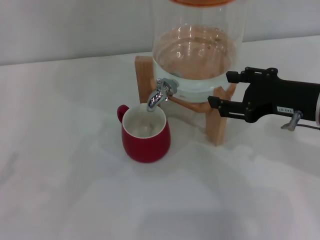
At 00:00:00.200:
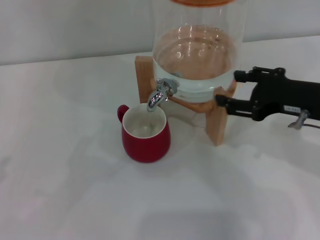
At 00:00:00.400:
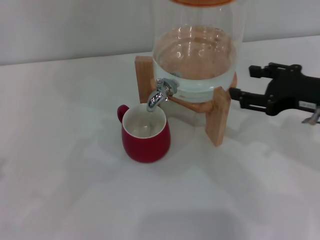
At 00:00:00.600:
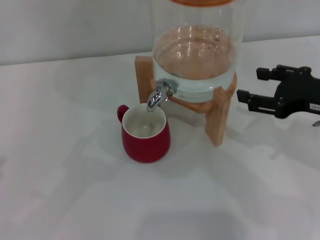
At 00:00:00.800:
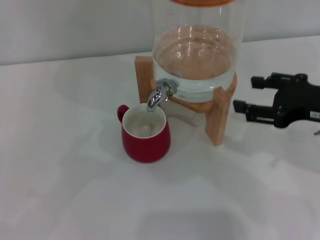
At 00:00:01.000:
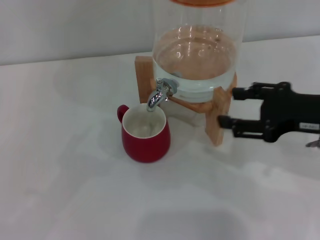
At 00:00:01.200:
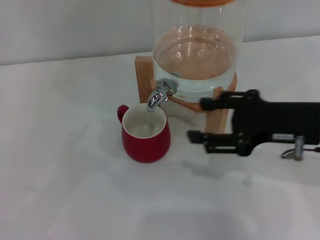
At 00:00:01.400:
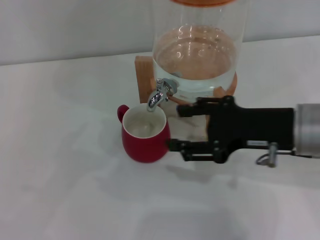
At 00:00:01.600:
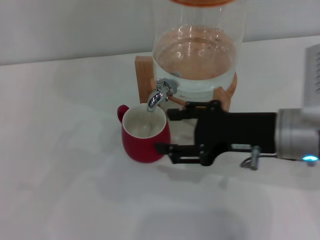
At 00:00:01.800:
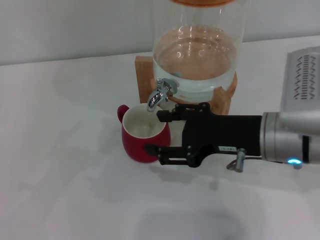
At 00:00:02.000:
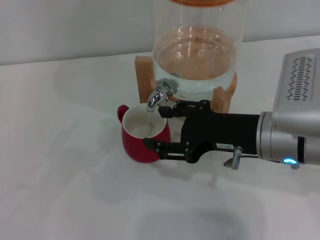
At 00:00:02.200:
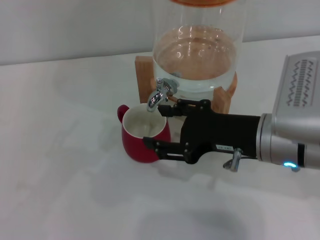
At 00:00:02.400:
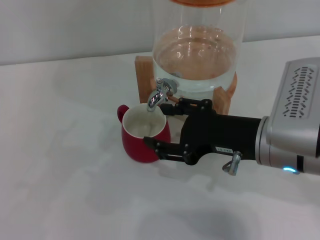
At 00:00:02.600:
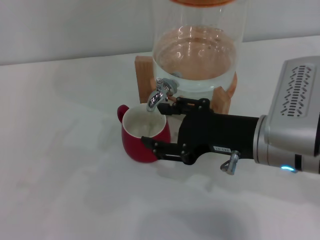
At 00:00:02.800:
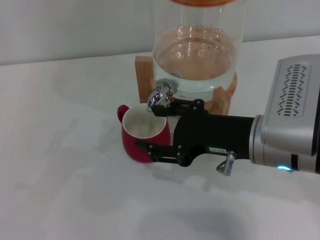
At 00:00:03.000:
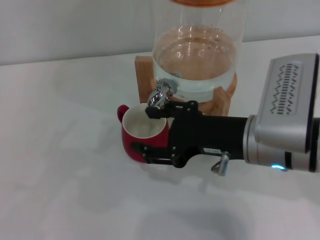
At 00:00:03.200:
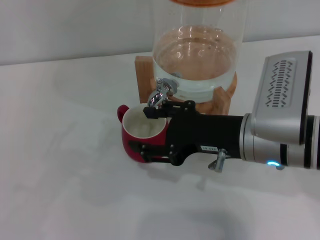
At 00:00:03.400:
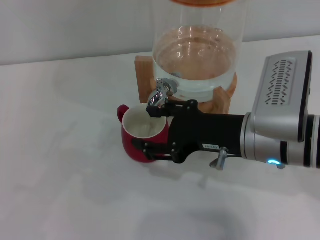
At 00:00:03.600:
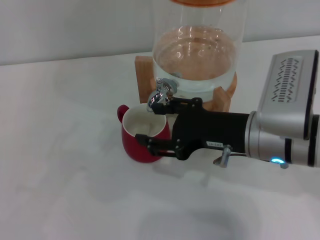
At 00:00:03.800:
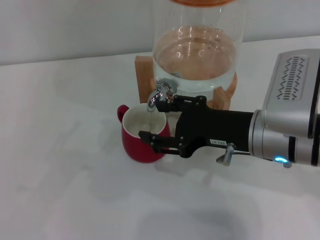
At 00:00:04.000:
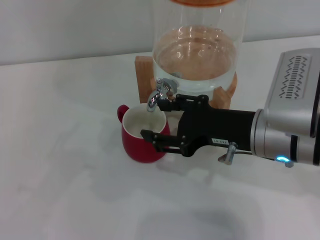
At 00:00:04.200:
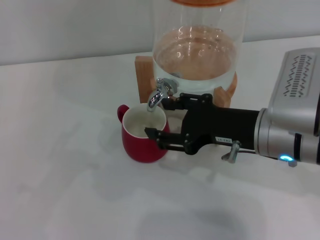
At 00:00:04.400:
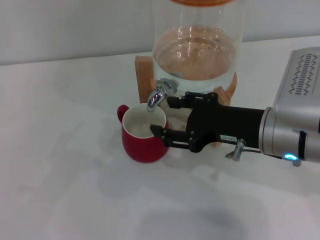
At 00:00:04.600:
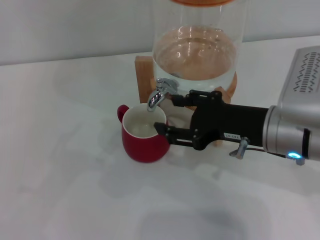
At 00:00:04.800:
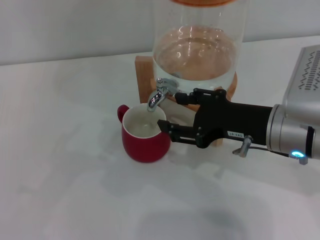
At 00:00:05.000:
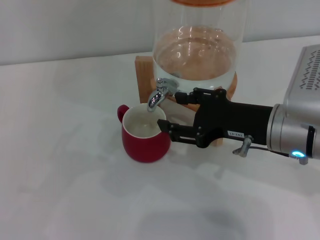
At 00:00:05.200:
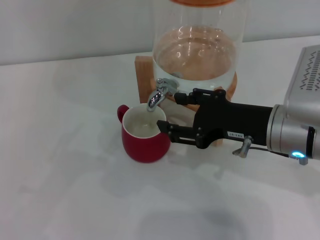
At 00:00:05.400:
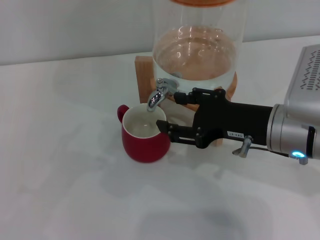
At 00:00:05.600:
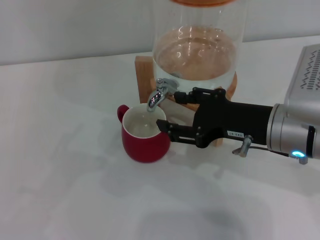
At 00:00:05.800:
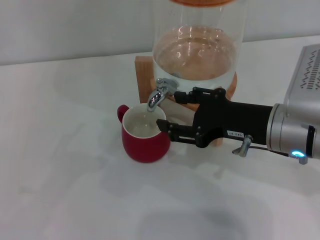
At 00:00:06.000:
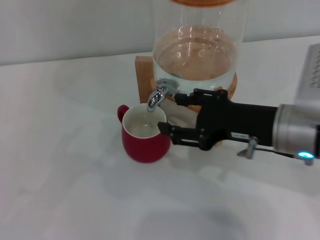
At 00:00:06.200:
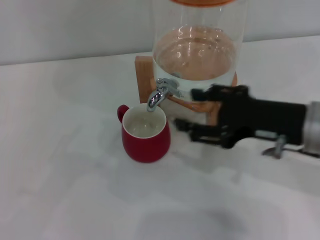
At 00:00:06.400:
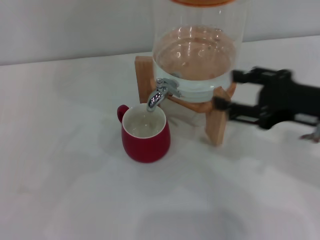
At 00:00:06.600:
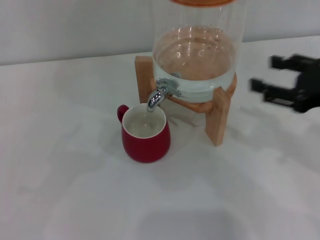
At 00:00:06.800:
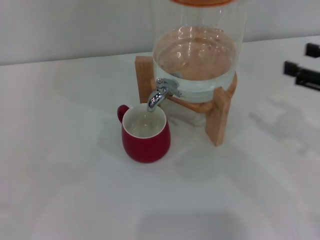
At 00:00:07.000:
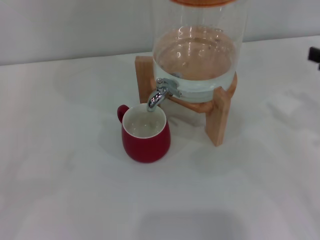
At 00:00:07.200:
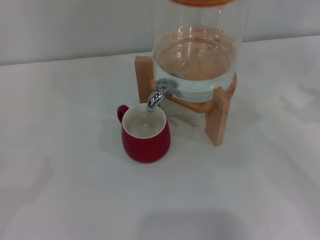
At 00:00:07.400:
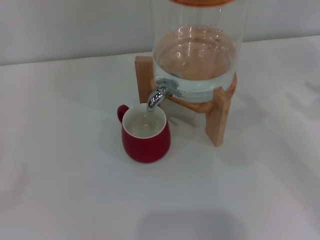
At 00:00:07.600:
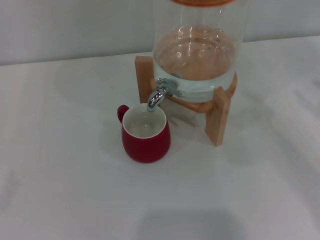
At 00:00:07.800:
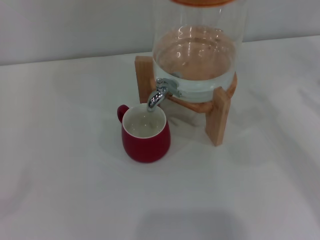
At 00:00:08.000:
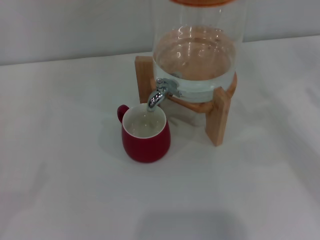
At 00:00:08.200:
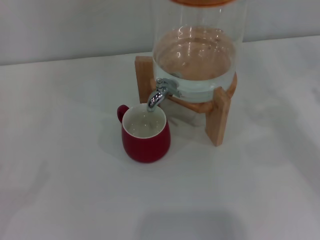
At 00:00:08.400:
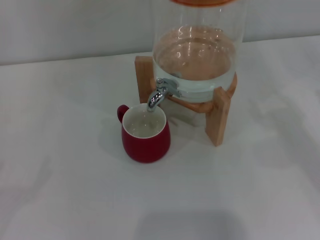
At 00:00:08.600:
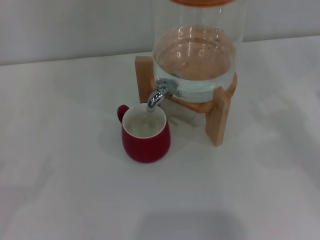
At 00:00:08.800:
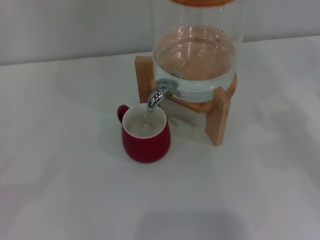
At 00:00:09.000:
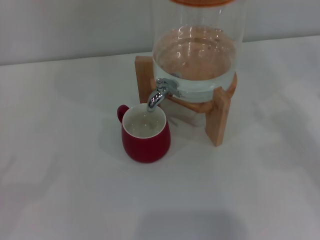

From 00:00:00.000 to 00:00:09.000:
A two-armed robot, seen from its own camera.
Task of the whole recording: the left gripper pick up the red cup and place it horizontally under the faucet, the right gripper turn on the faucet to fill the cup, and then turn off the faucet.
Step, from 00:00:00.000 to 00:00:06.000: Close the dispenser valve with the right gripper.
From 00:00:00.000 to 00:00:01.600: The right gripper moves to the left, about 5 cm.
From 00:00:01.600 to 00:00:06.000: The grippers stay close to where they were, moving slightly.
From 00:00:06.000 to 00:00:07.600: The right gripper shifts some 20 cm to the right, while the left gripper shifts about 10 cm backward and to the left.
